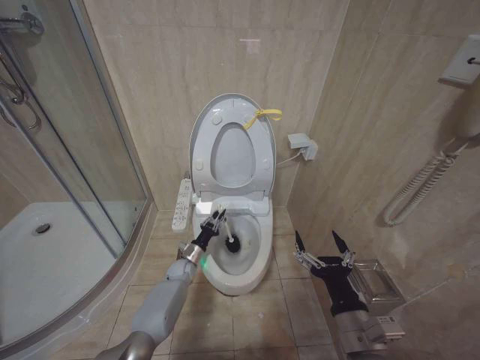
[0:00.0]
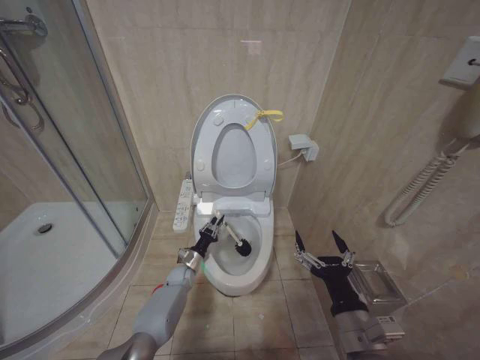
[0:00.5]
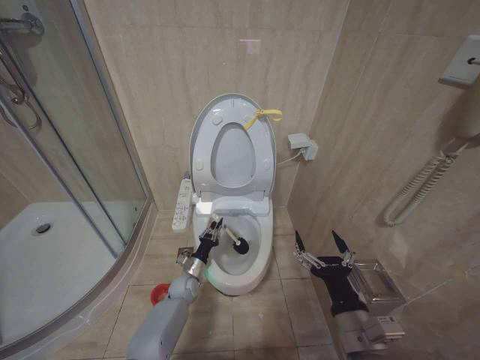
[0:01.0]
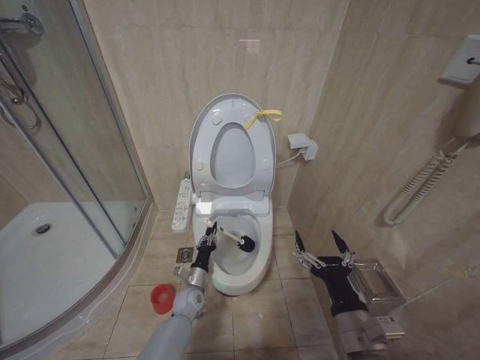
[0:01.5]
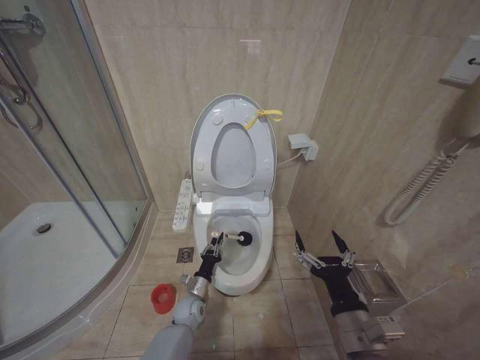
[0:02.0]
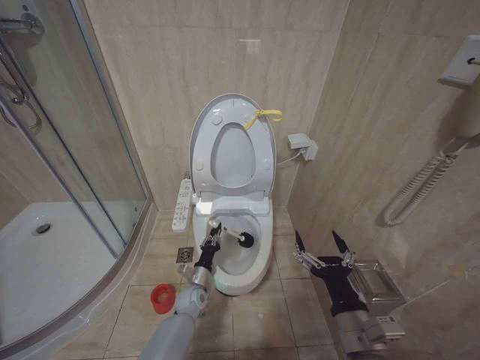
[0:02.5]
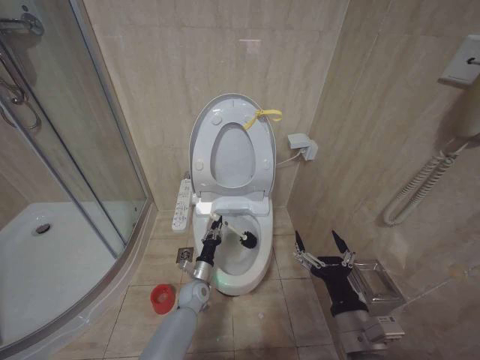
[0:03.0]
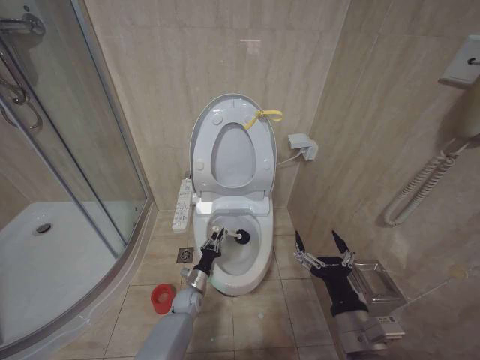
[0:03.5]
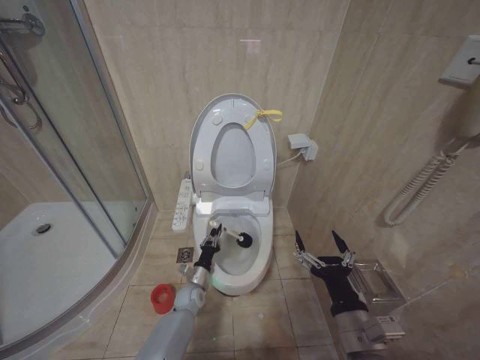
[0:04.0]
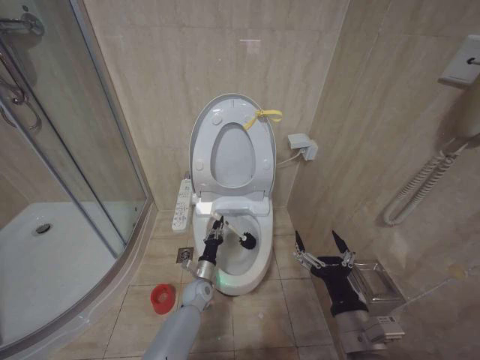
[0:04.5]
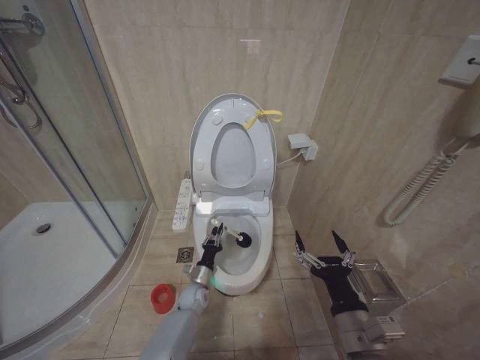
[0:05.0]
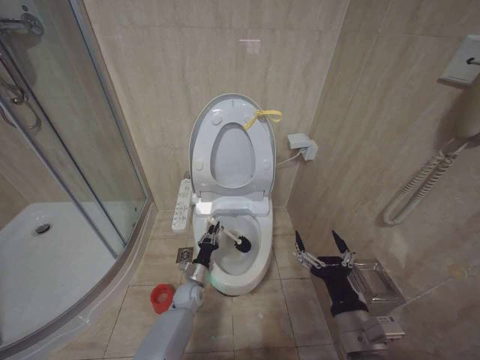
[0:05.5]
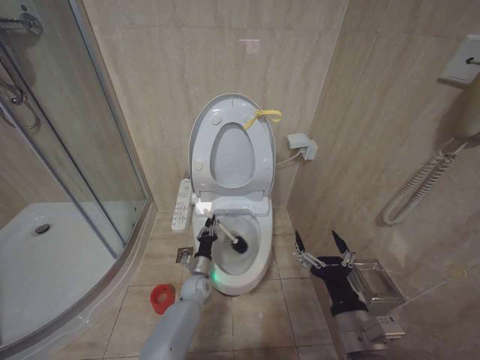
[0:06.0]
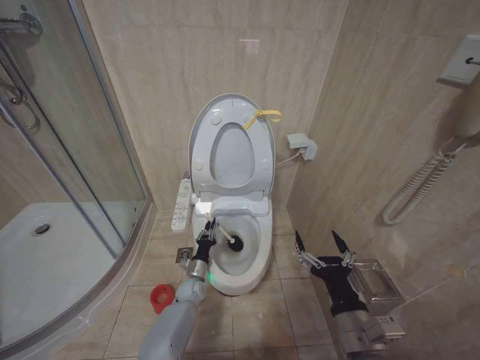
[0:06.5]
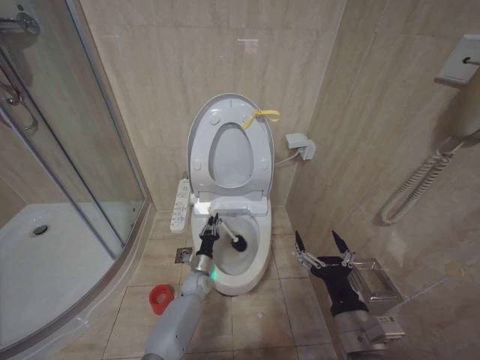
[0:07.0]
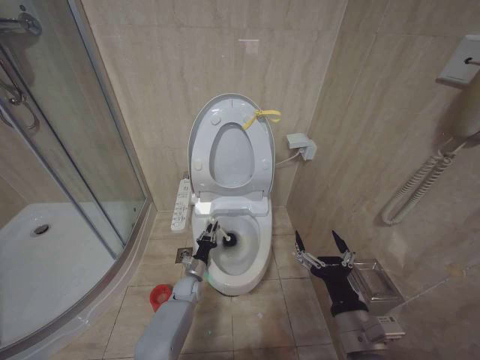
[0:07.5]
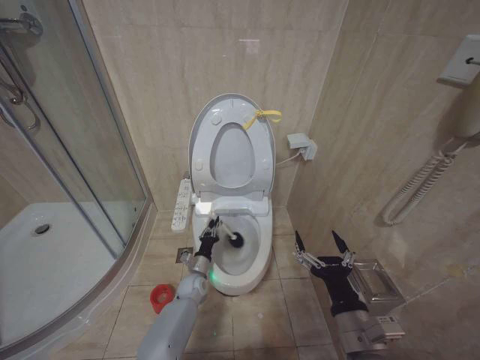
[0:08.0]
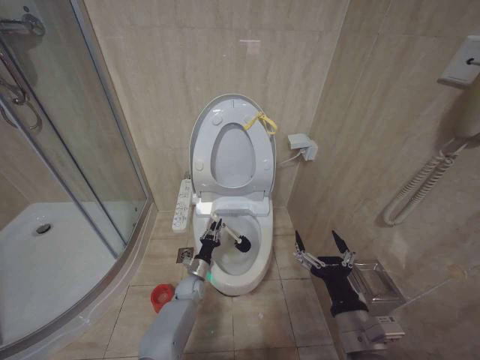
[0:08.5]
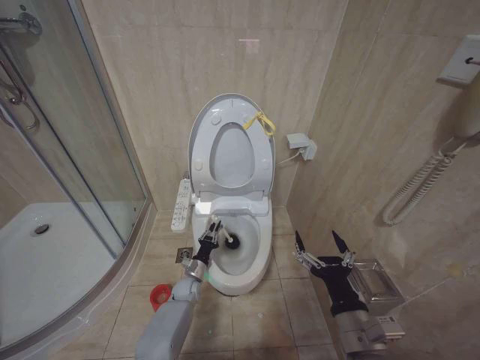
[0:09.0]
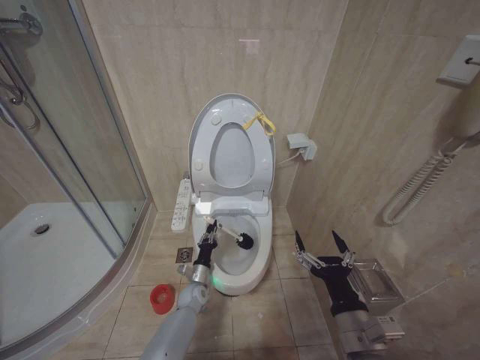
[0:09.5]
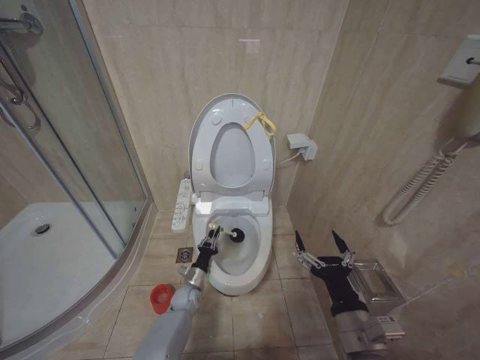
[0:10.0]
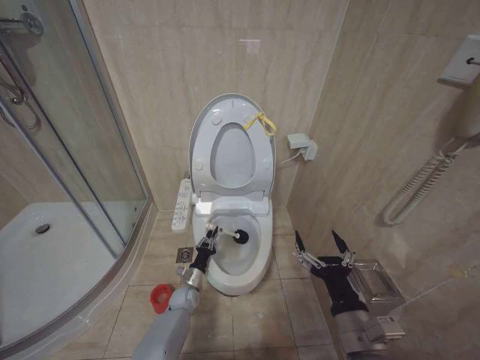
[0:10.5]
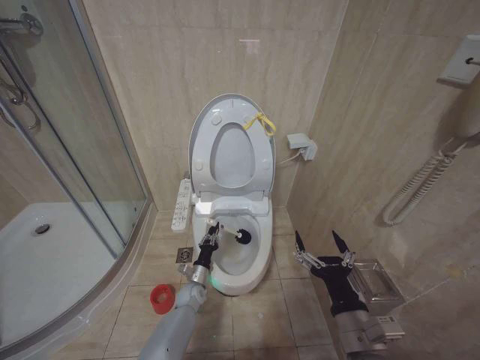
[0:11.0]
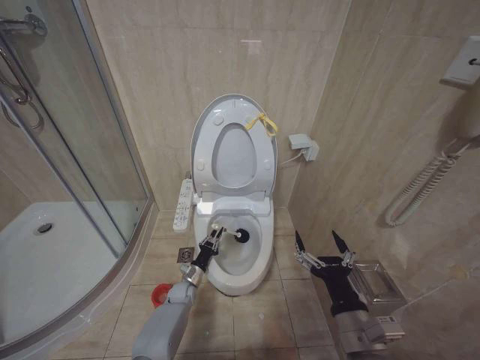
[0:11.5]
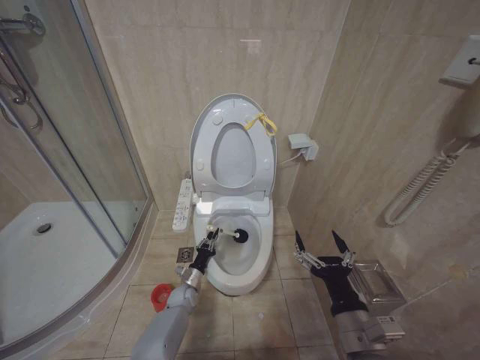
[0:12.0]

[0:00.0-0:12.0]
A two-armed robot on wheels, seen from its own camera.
Task of the whole recording: Open the toilet lid, clean the toilet bowl with a toilet brush, close the toilet lid, and flush.
0:00.0 to 0:02.0: The left gripper heads backward, covering about 10 cm.
0:02.0 to 0:04.0: The grippers stay close to where they were, moving slightly.
0:08.0 to 0:10.0: The grippers make only small movements.

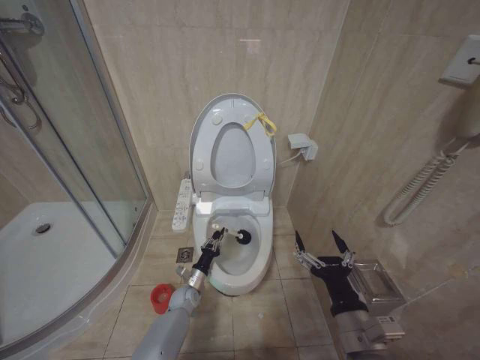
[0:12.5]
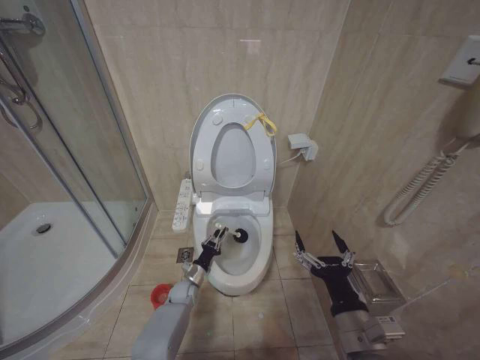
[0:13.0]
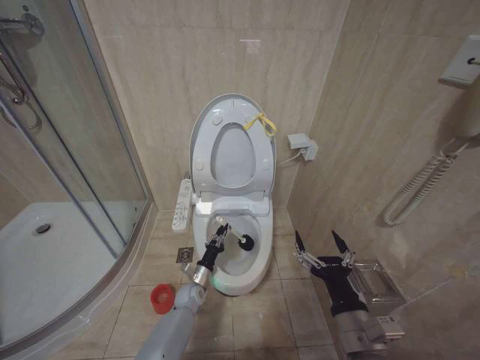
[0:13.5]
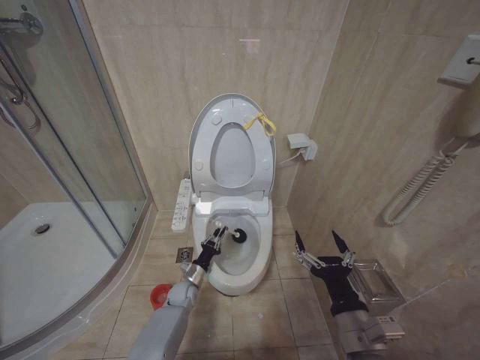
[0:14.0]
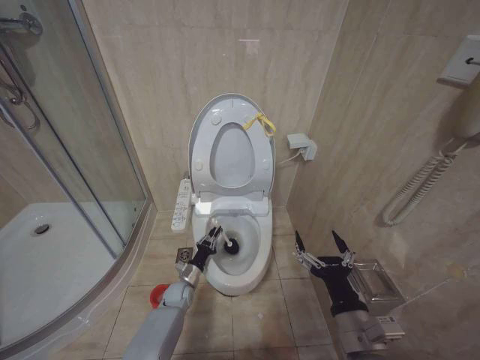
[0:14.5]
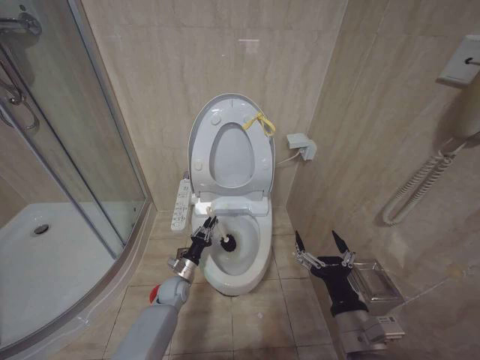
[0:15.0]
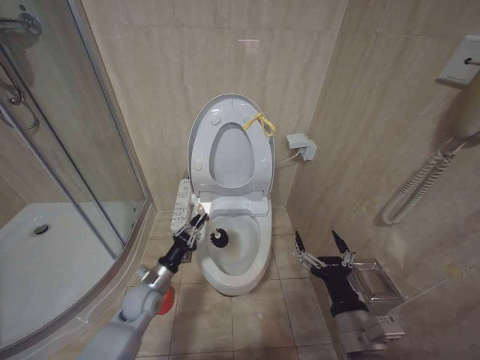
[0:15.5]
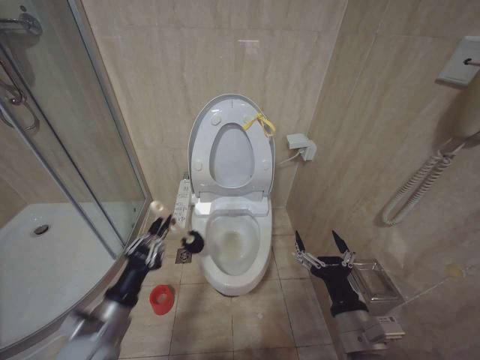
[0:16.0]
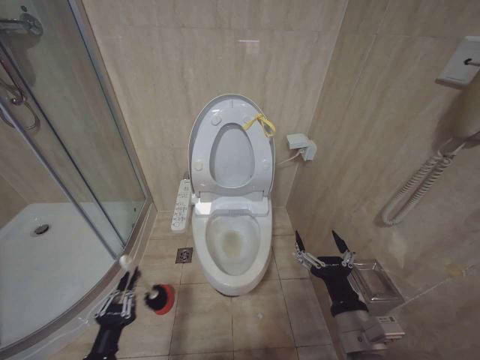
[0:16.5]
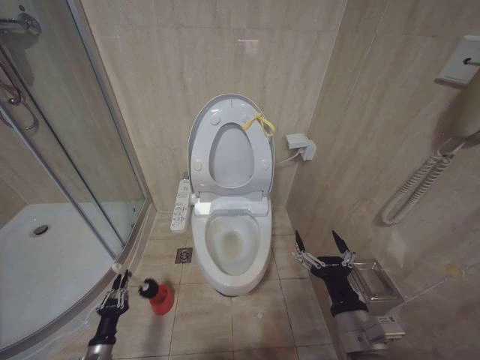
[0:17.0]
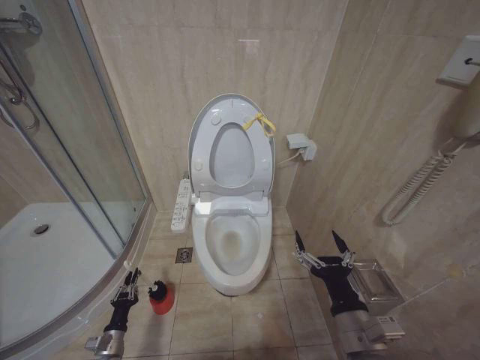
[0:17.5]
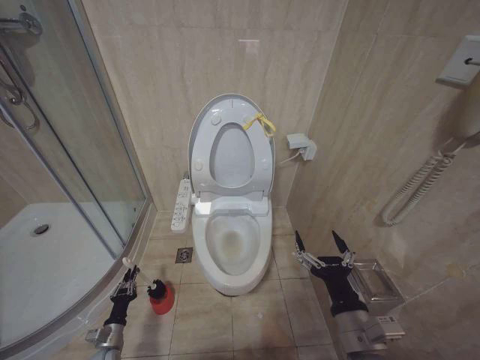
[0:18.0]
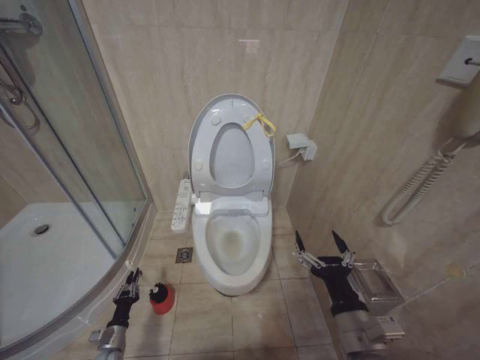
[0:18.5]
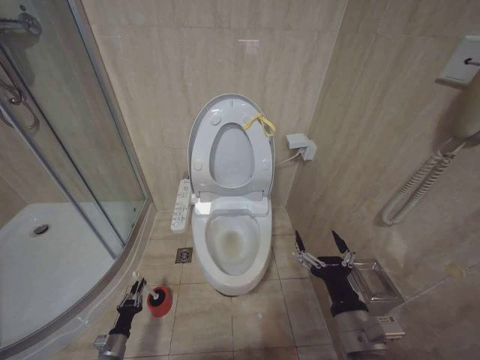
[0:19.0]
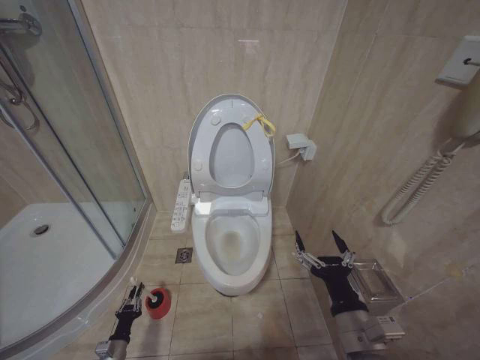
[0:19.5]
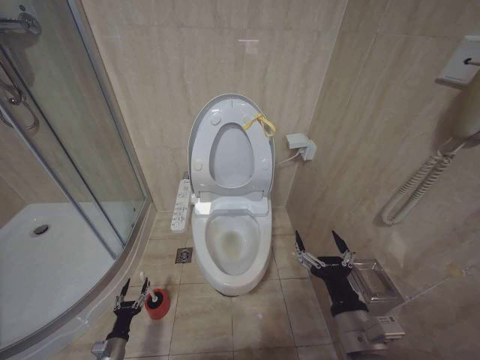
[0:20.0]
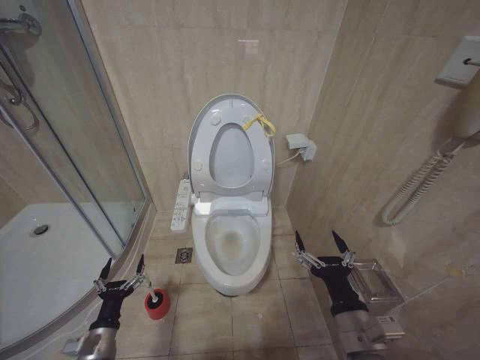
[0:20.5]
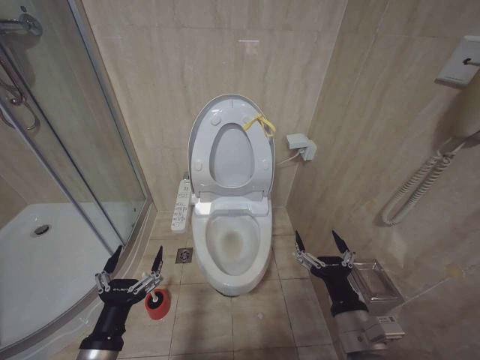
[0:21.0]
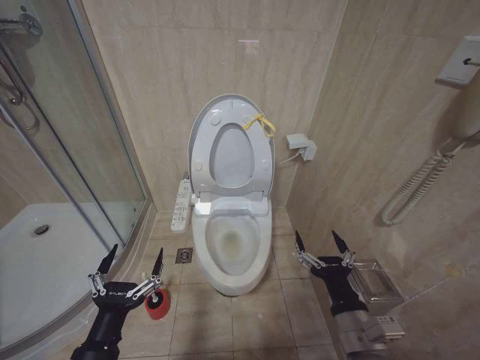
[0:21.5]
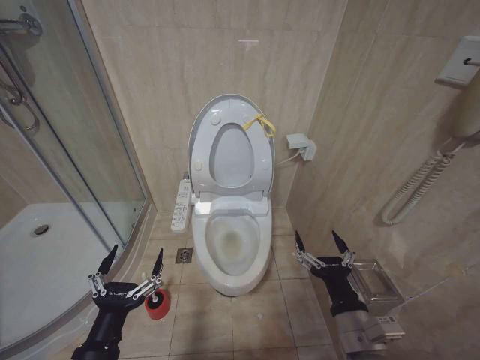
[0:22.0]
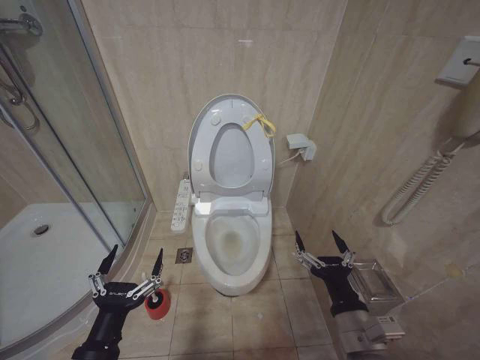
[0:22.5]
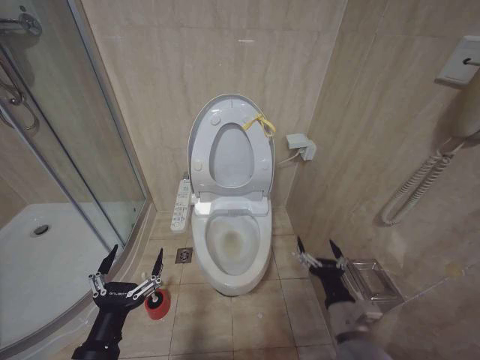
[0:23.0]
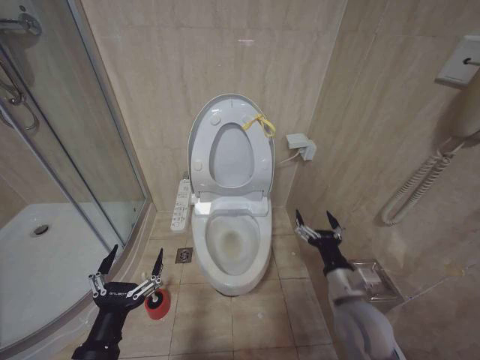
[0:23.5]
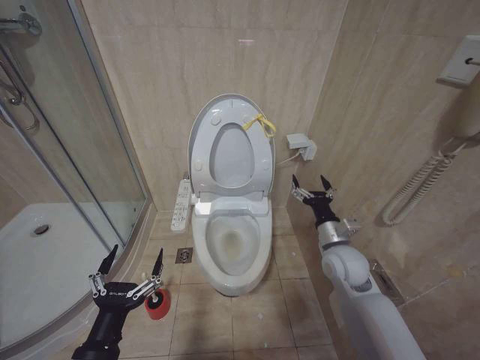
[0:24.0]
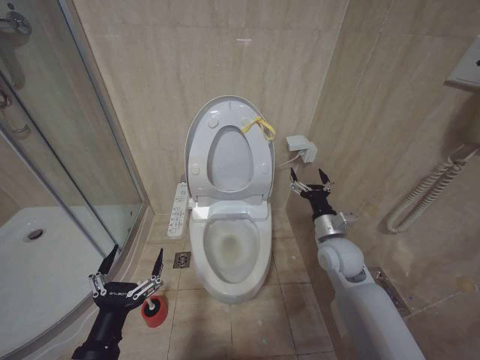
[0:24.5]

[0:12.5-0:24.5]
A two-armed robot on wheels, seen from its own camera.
Task of the whole recording: Open the toilet lid, clean the toilet bowl with a toilet brush, close the toilet lid, and flush.
0:14.5 to 0:16.5: The left gripper goes roughly 35 cm backward and upward.
0:16.5 to 0:18.5: The left gripper goes about 30 cm downward, forward and to the left.
0:18.5 to 0:20.5: The left gripper moves upward, roughly 15 cm, and opens.
0:20.5 to 0:22.5: The left gripper moves upward, backward and to the right, roughly 25 cm.
0:22.5 to 0:24.5: The right gripper moves forward, approximately 20 cm.

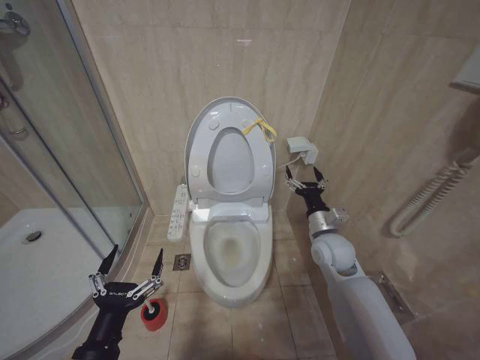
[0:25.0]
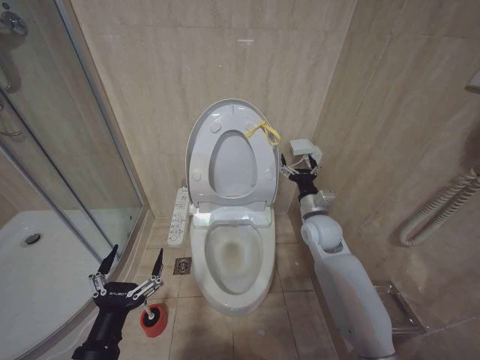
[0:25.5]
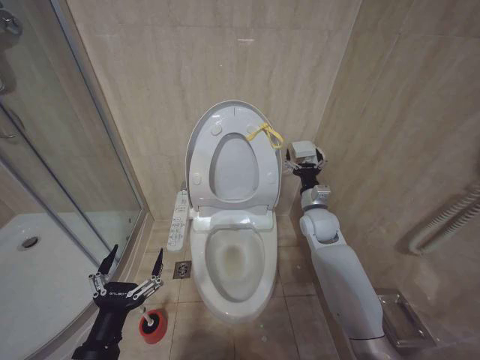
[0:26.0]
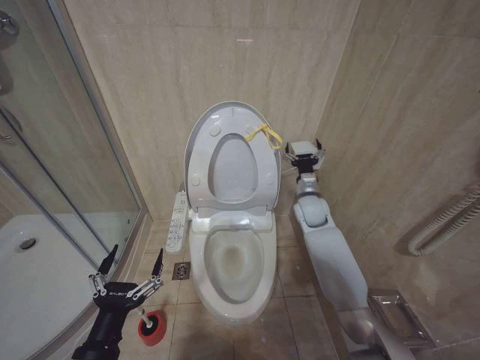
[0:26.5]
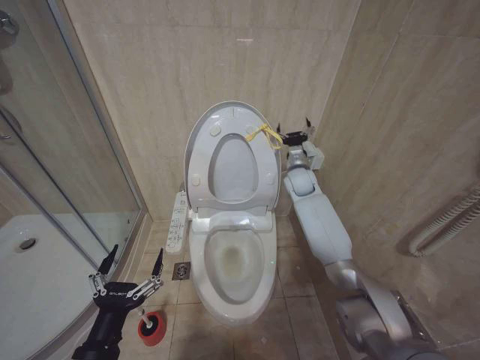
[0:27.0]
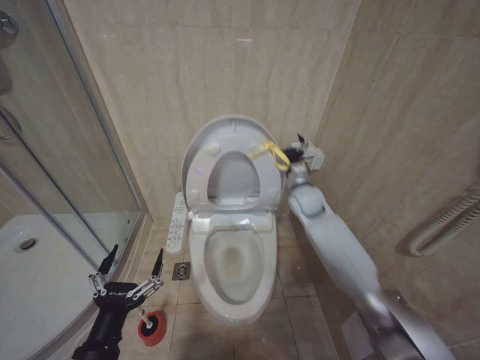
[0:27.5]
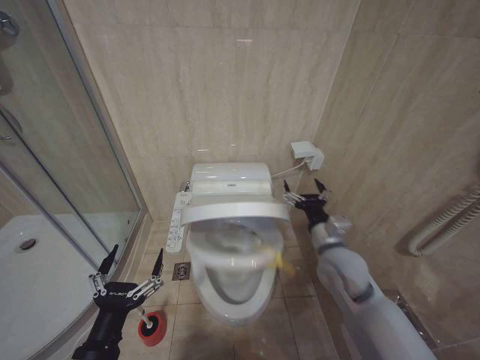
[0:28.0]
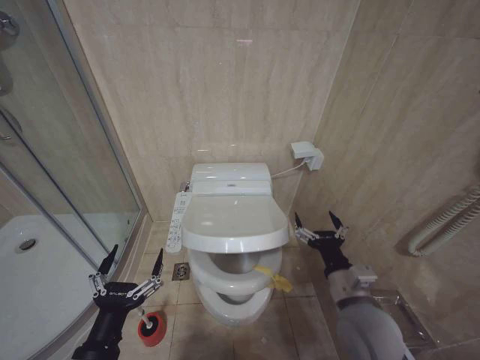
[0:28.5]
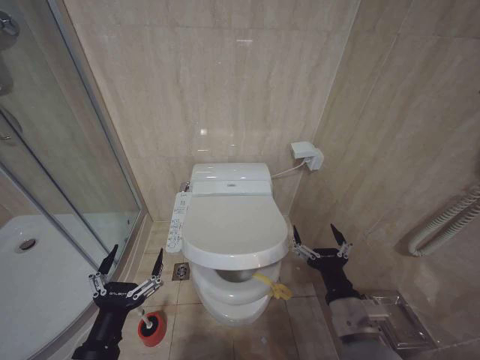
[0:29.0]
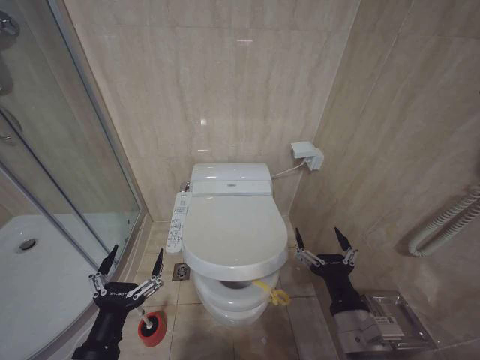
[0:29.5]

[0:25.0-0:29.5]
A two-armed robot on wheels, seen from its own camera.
Task of the whole recording: Open the toilet lid, clean the toilet bowl with a toilet brush, close the toilet lid, and flush.
0:25.0 to 0:27.0: The right gripper shifts roughly 20 cm forward.
0:27.0 to 0:29.5: The right gripper moves backward, some 40 cm.
